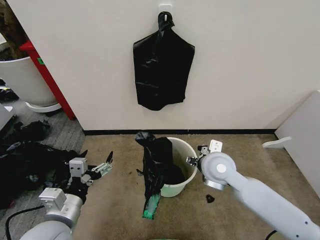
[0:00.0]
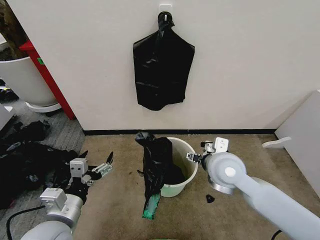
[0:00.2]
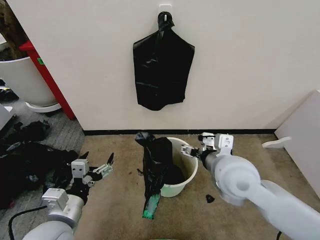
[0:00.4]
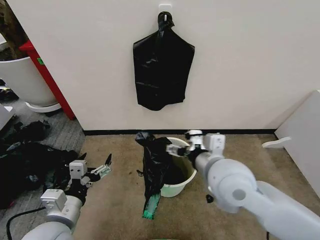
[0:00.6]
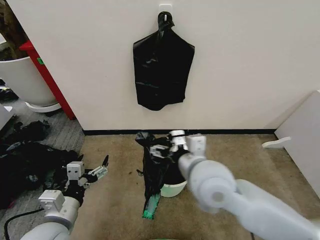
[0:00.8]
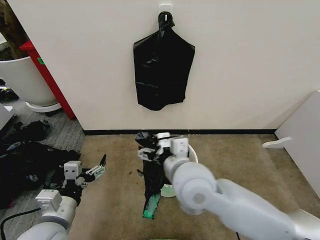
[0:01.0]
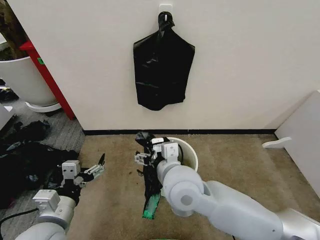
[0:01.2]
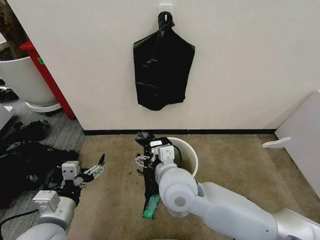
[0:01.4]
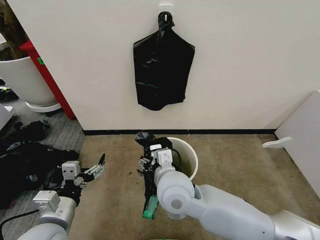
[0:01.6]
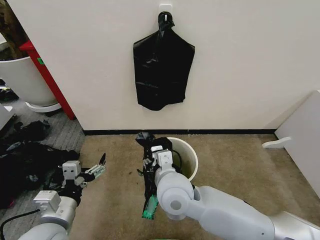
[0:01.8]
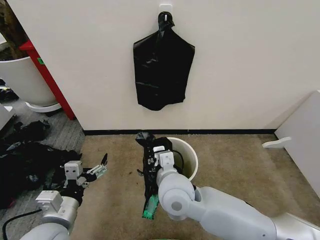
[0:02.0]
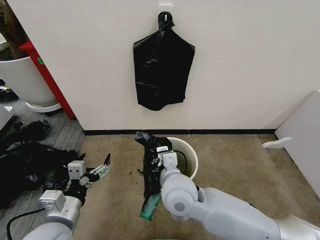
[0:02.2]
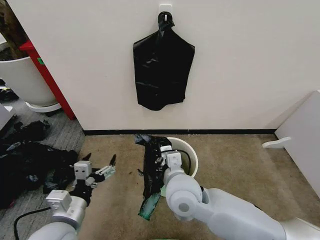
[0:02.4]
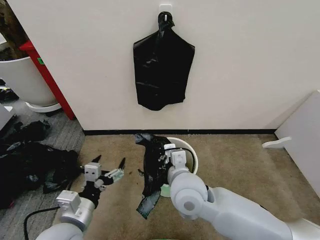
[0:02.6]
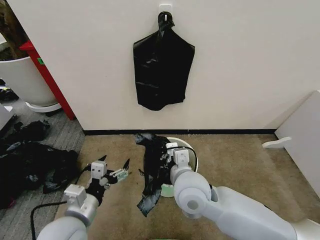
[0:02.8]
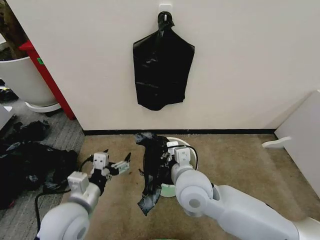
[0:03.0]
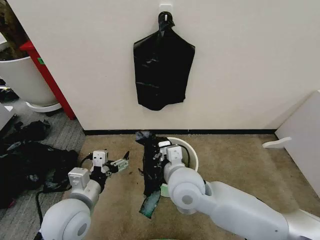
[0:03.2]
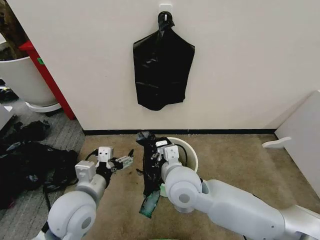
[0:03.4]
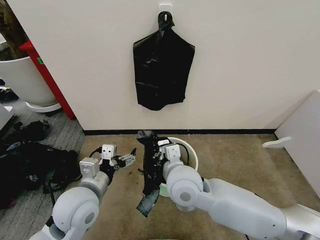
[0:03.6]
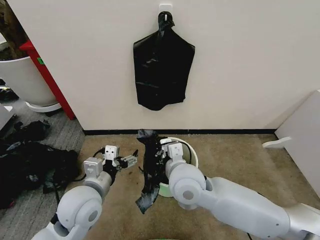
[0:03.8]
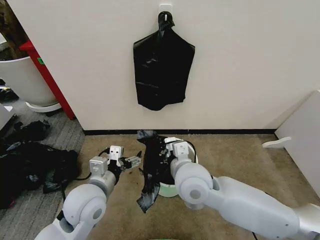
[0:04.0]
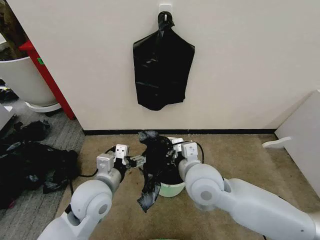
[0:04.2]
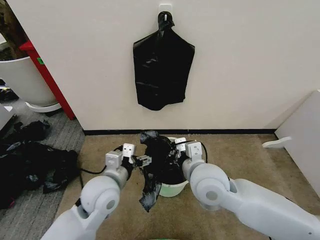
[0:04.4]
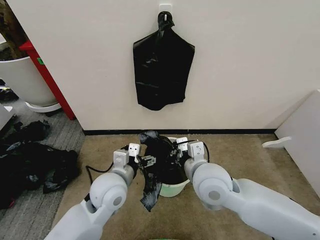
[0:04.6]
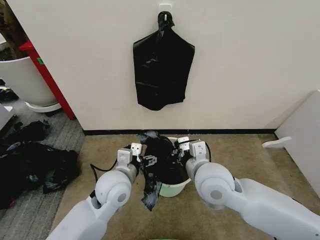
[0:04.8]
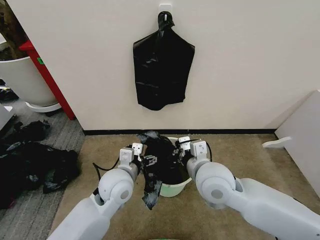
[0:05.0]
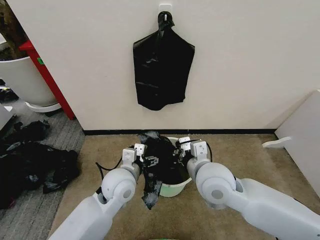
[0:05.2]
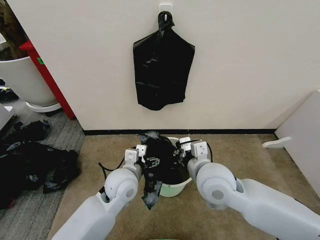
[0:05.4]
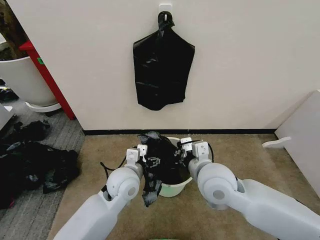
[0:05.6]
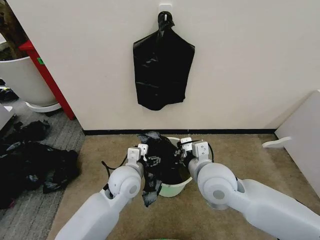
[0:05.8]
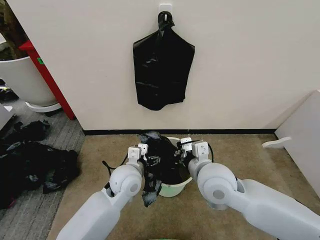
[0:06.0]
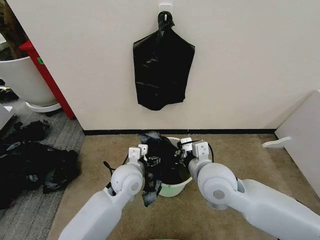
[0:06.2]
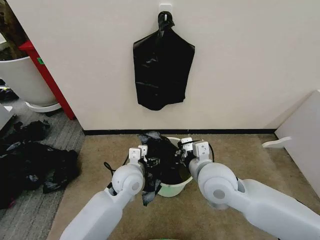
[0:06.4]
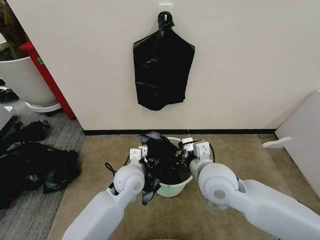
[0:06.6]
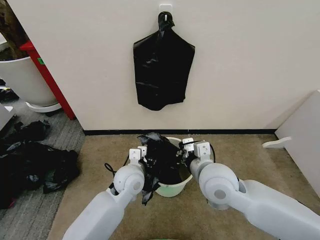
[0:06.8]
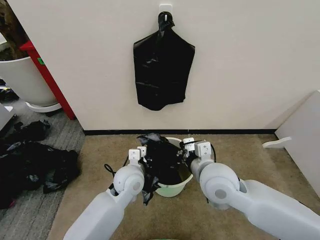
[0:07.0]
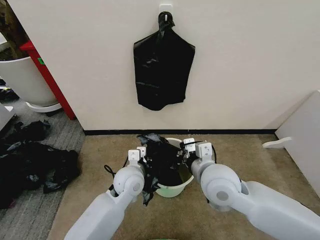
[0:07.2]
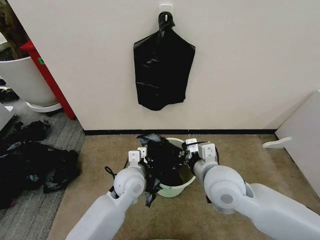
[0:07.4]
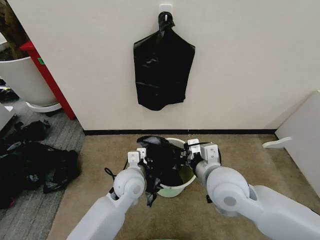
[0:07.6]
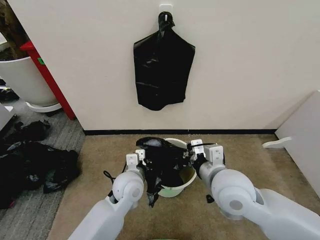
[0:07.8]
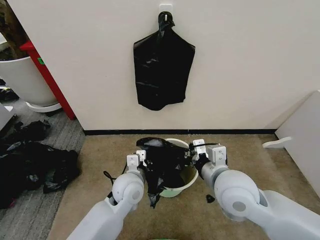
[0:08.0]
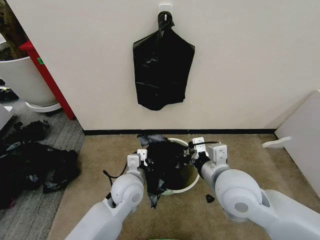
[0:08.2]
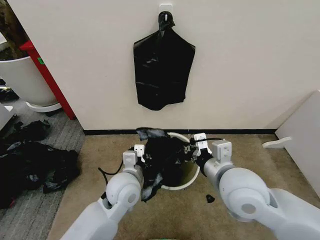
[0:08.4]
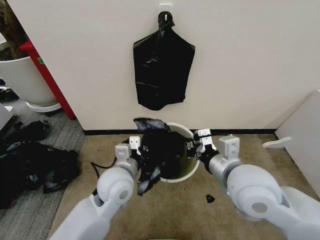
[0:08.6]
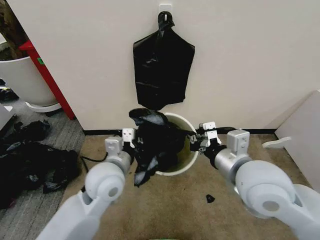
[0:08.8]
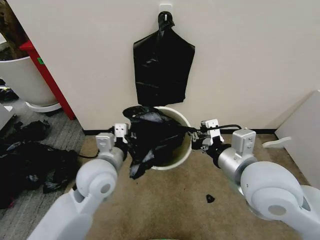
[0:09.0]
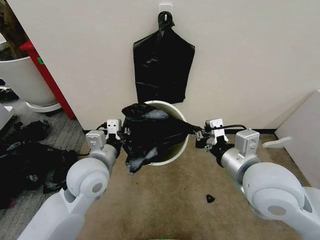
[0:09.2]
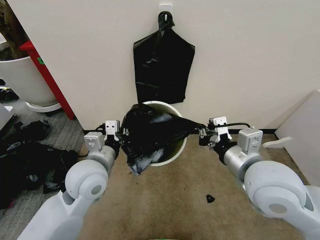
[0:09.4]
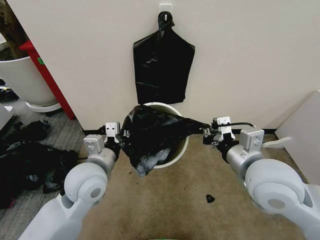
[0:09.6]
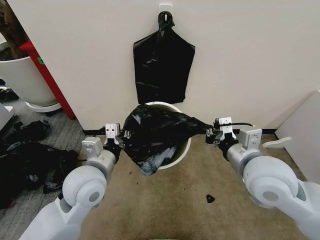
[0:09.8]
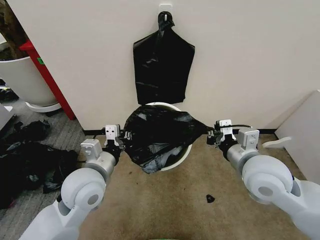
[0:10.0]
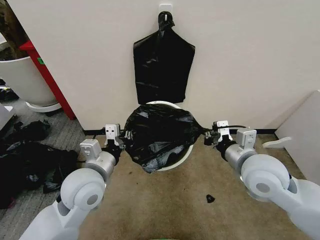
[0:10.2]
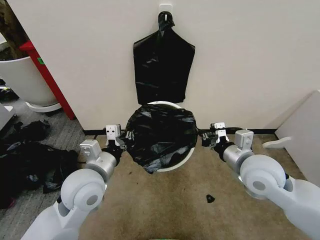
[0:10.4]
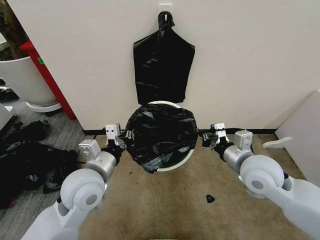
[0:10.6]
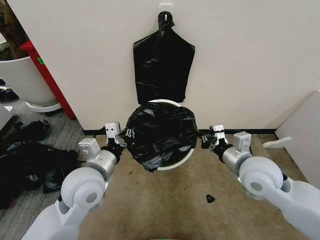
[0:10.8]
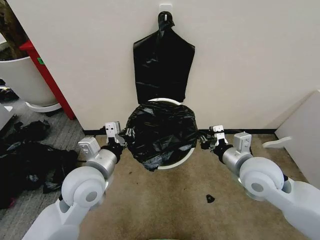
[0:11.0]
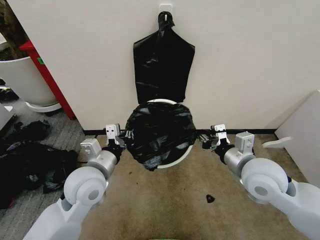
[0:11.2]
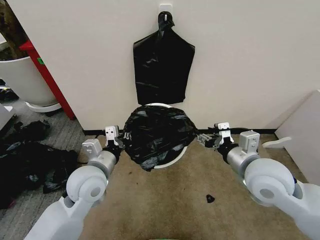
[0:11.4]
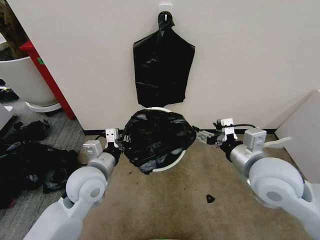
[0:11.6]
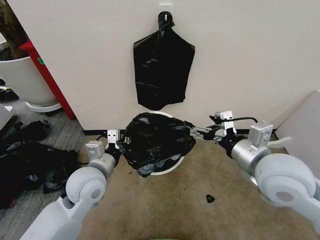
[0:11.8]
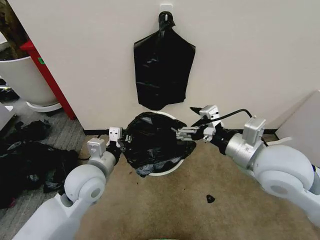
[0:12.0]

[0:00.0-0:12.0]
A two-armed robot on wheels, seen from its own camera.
Task of the whole recording: Place the garbage bag over the trash bin.
0:00.0 to 0:01.6: The right gripper shifts approximately 15 cm to the left and backward.
0:01.6 to 0:03.0: The left gripper changes place by some 5 cm, while the right gripper closes up.
0:03.0 to 0:04.4: The left gripper shifts some 10 cm forward and to the right.
0:04.4 to 0:06.0: The left gripper moves to the right and forward, some 10 cm.
0:06.0 to 0:07.6: The left gripper closes up.
0:07.6 to 0:09.0: The right gripper goes roughly 10 cm upward, while the left gripper heads upward and to the left, covering about 15 cm.
0:09.0 to 0:10.4: The right gripper travels downward and forward by some 10 cm.
0:10.4 to 0:12.0: The right gripper shifts approximately 10 cm upward, and opens.

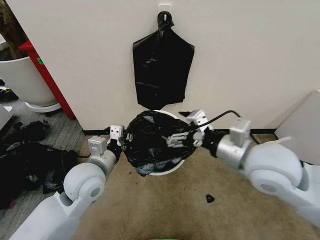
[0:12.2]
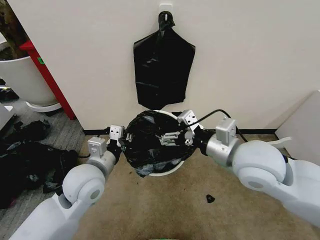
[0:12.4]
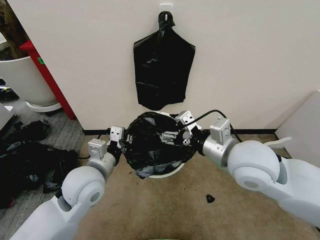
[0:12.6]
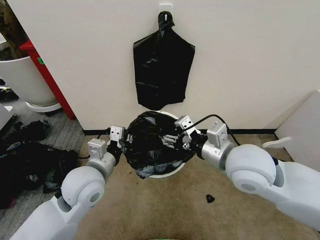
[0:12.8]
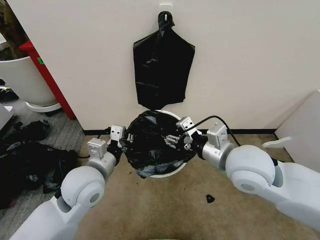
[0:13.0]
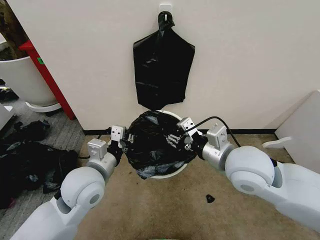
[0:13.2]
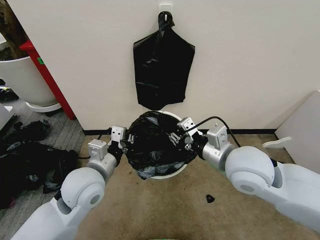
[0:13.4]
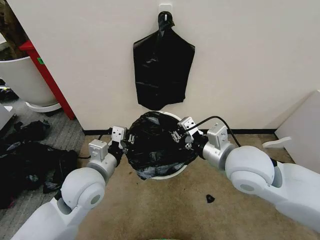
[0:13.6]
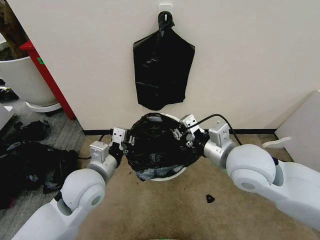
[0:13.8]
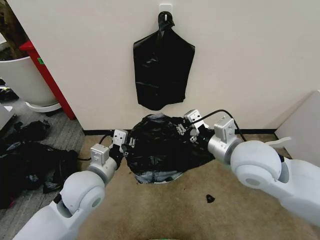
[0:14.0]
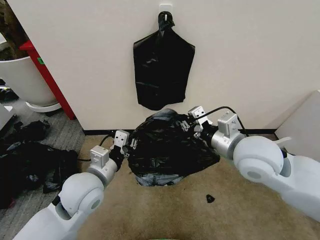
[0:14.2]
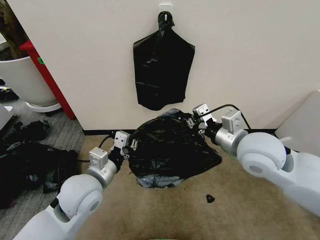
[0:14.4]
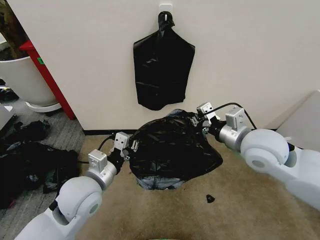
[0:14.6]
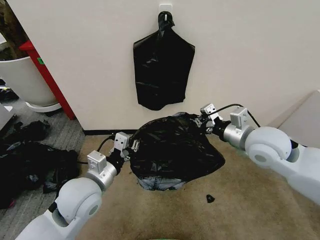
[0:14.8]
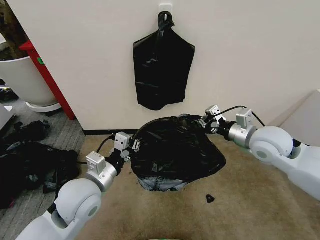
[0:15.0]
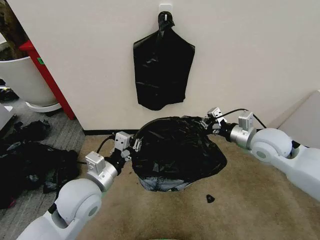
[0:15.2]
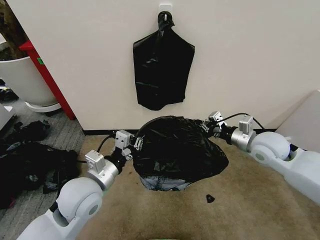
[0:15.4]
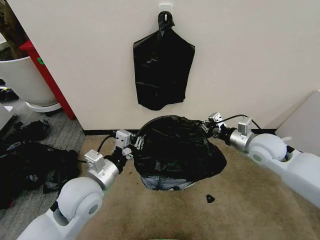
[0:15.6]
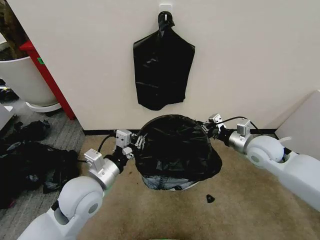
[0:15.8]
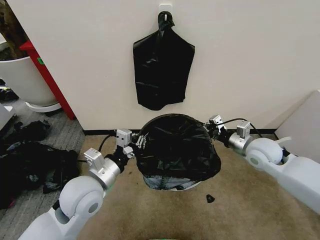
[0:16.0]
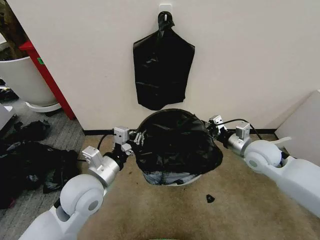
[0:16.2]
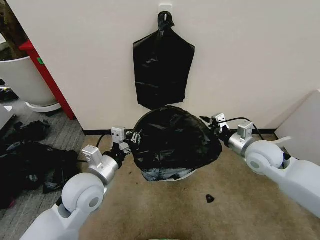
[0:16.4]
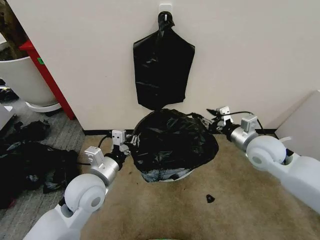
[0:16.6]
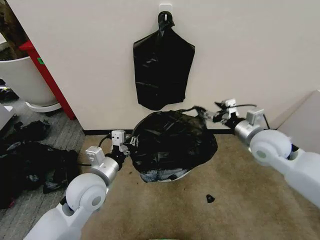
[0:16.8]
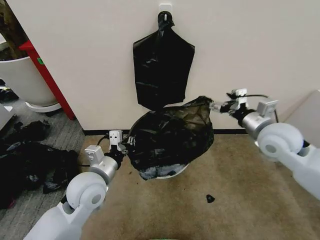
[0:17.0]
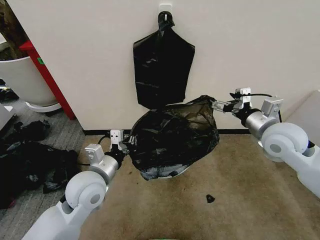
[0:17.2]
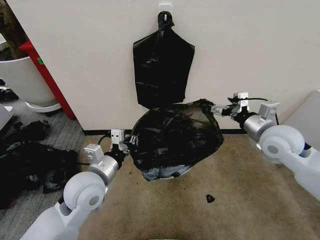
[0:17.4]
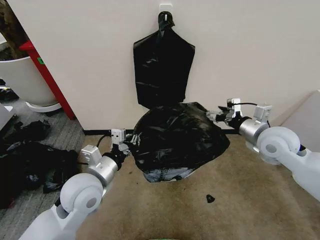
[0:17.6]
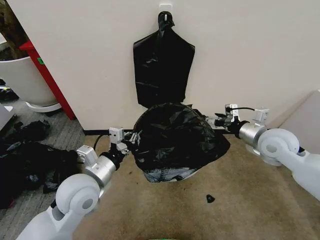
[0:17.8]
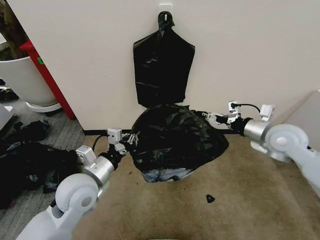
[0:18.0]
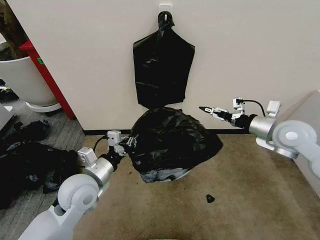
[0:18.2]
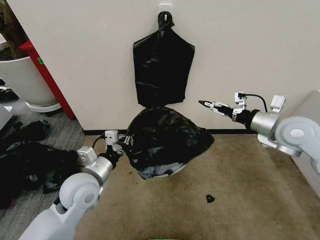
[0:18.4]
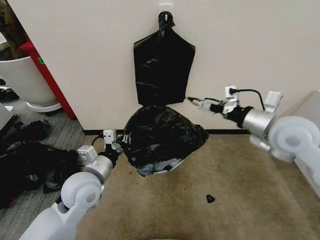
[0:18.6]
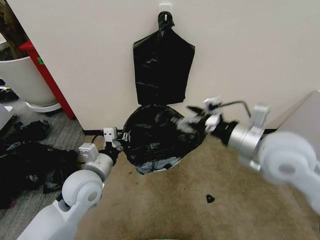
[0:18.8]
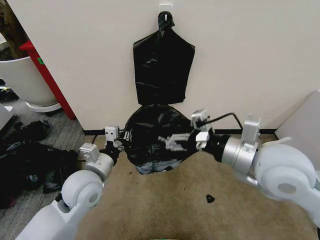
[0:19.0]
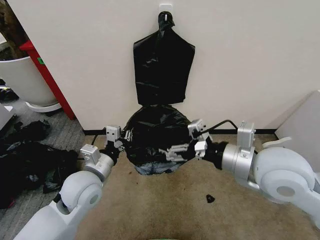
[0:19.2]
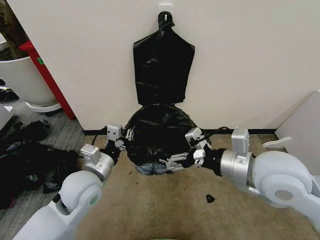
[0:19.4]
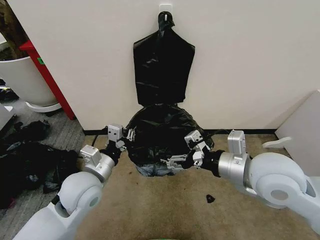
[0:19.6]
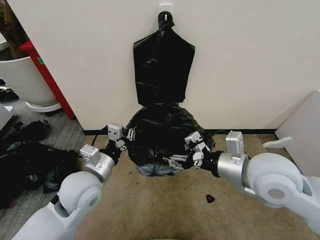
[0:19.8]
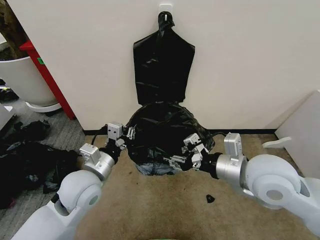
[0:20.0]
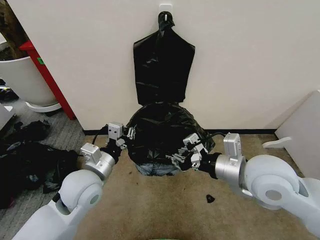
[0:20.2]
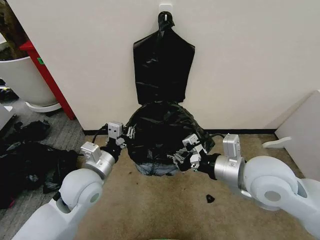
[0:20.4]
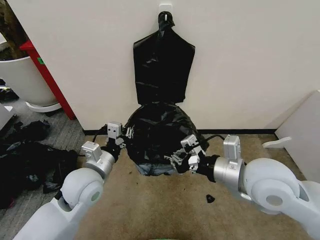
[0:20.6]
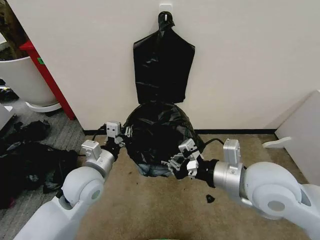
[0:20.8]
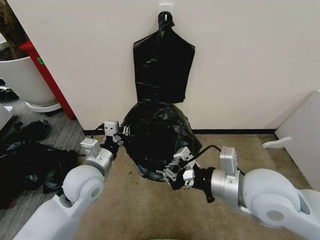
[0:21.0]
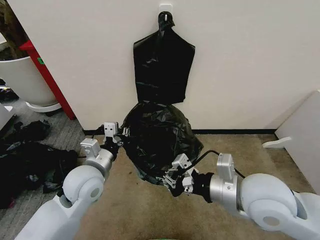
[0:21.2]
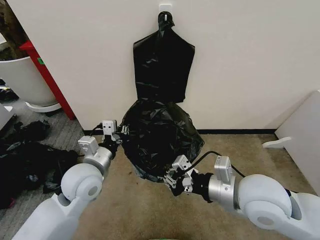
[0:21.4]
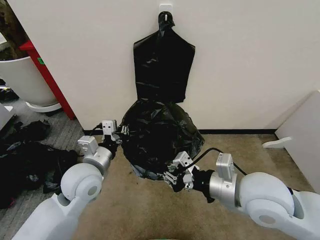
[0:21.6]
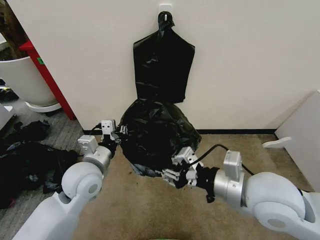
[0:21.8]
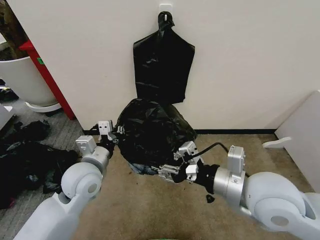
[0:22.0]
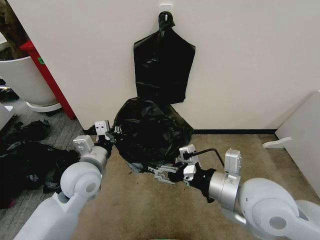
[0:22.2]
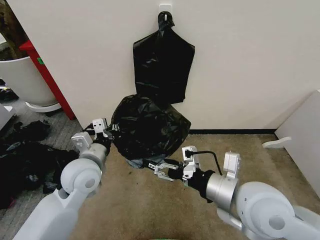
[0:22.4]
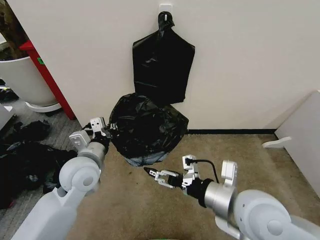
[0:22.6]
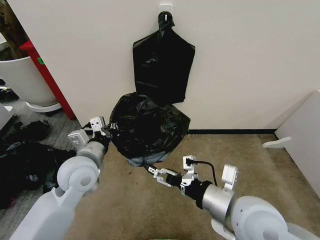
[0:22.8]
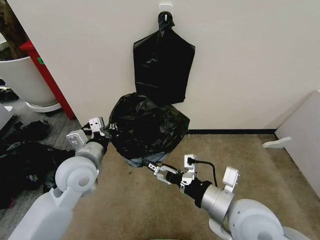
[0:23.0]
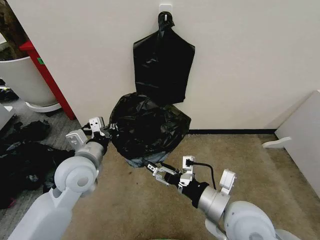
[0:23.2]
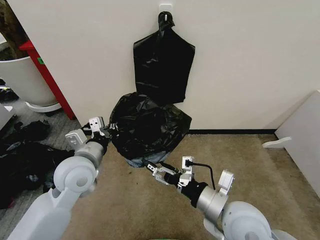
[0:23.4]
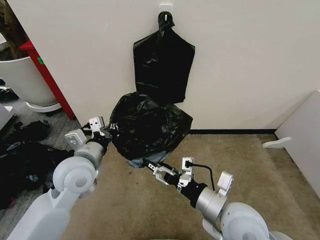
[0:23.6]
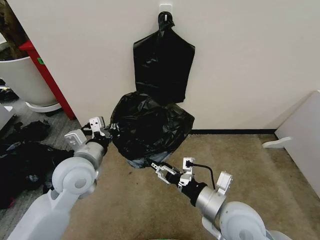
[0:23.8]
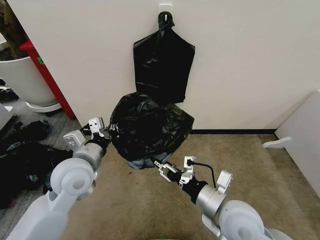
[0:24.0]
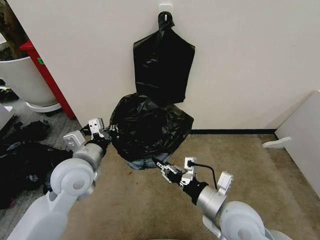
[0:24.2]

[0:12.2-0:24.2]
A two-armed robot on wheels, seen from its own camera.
Task of the whole recording: Place the garbage bag over the trash bin.
0:12.2 to 0:13.8: The right gripper closes up.
0:13.8 to 0:15.2: The right gripper shifts approximately 15 cm to the right and forward.
0:15.2 to 0:16.6: The right gripper opens its fingers.
0:16.6 to 0:18.2: The right gripper travels upward and to the right by some 10 cm, and opens its fingers.
0:18.2 to 0:19.8: The right gripper shifts approximately 20 cm to the left and backward.
0:19.8 to 0:21.2: The right gripper closes its fingers.
0:21.2 to 0:22.6: The right gripper opens up.
0:22.6 to 0:24.2: The right gripper shifts some 10 cm downward, and closes its fingers.
